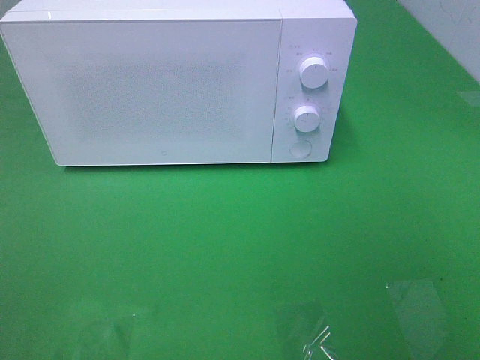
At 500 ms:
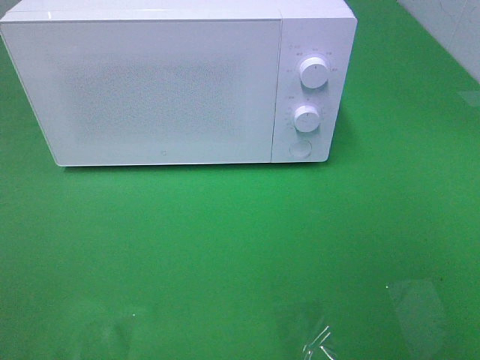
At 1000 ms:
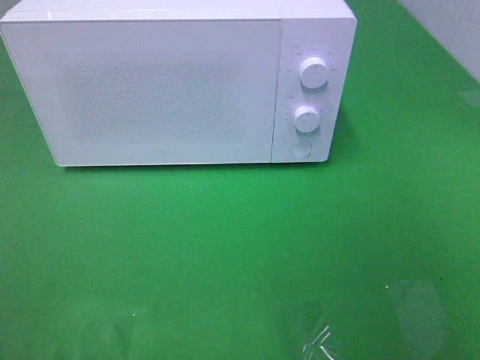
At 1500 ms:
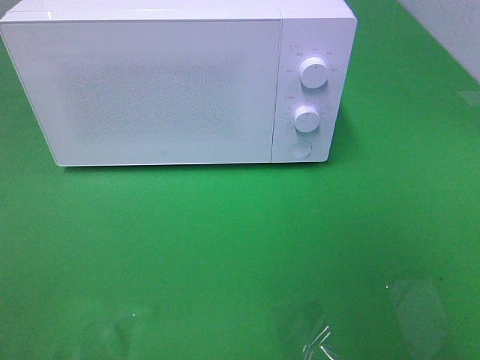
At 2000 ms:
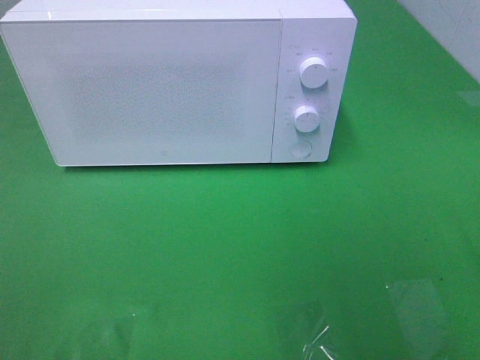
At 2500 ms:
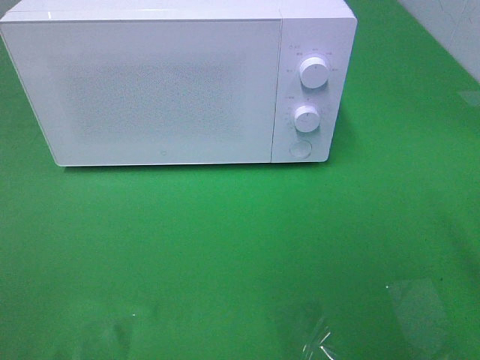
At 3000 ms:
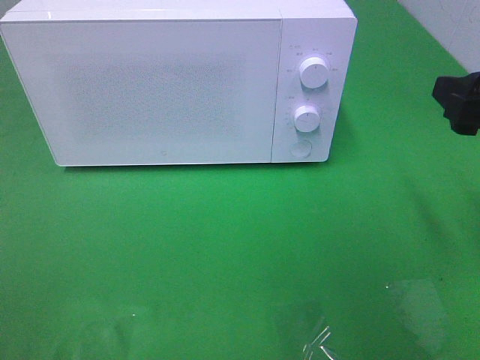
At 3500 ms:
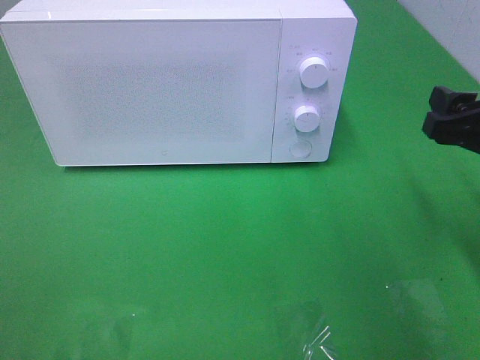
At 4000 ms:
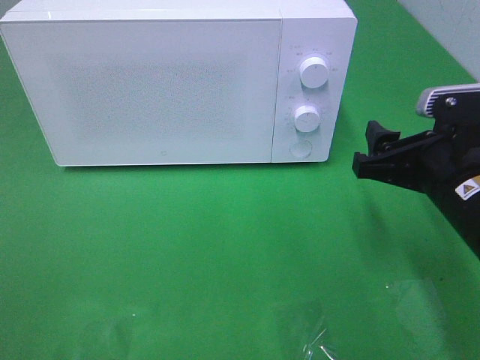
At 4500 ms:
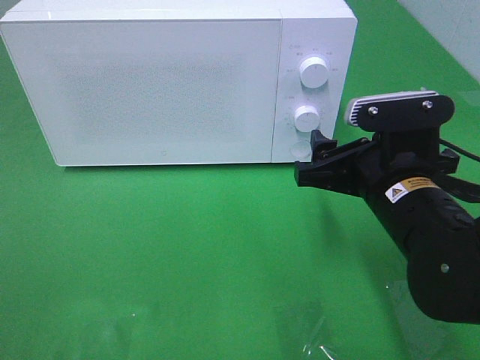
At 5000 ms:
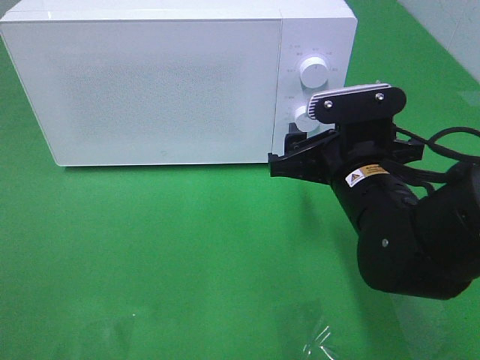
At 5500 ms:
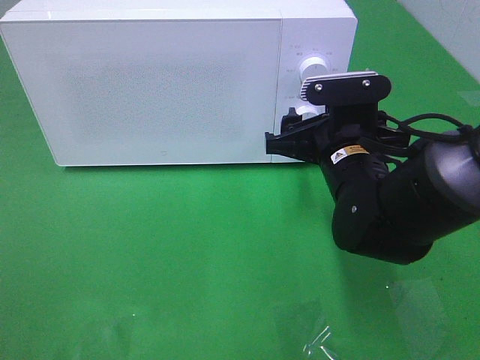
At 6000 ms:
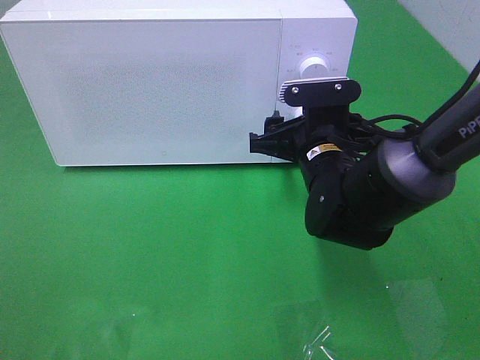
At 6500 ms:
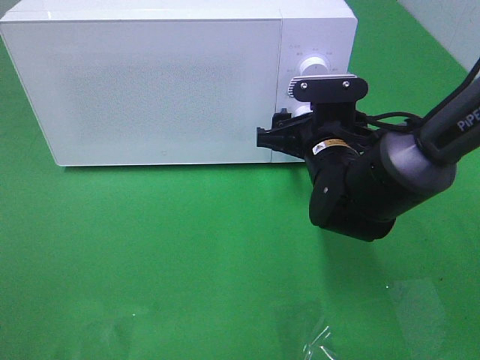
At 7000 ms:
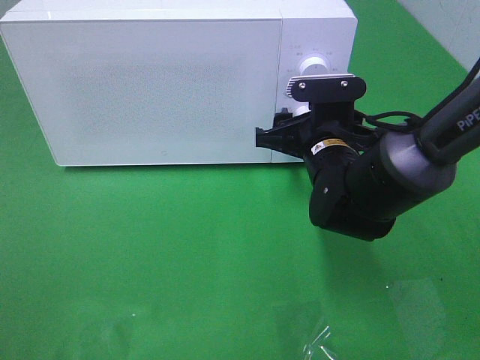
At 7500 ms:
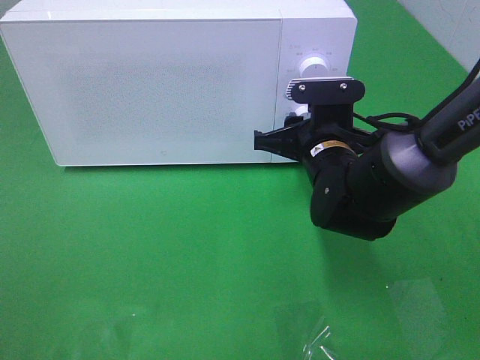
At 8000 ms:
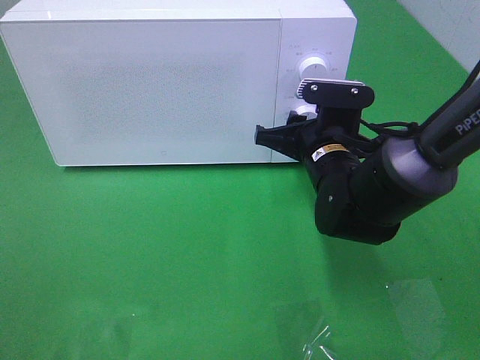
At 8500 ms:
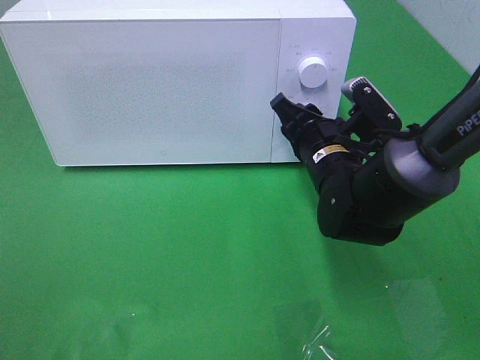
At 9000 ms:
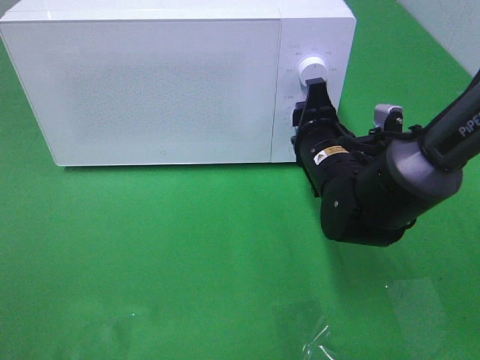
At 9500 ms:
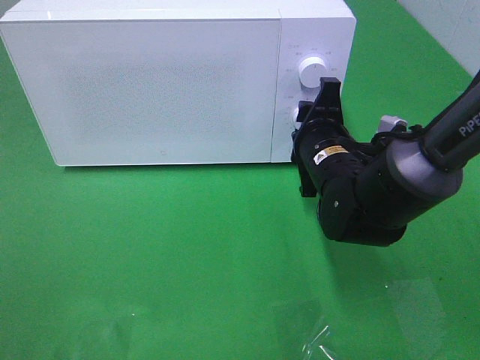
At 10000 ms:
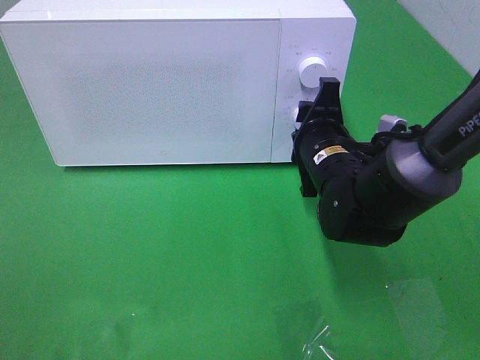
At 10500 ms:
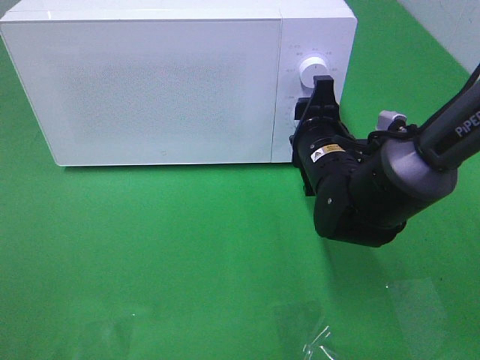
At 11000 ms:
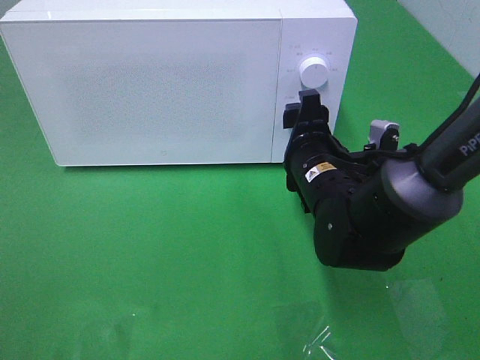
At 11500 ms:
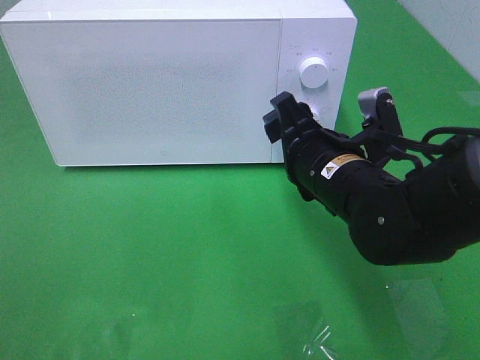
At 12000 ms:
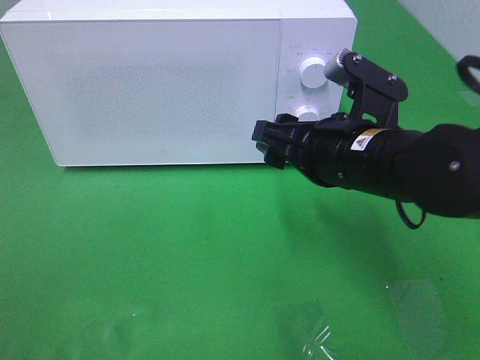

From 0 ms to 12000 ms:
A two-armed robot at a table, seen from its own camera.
Task of the whole recording: Heat the burger.
Step, from 0 ms to 11000 ms: Right hand: twist timer button.
From 2000 ms to 4000 ms: The right gripper travels downward, forward and to the left by about 20 cm.
From 4000 ms to 6000 ms: The right gripper travels to the left and forward by about 15 cm.
From 6000 ms to 8000 ms: The right gripper closes.
From 10000 ms to 12000 ms: The right gripper travels backward and upward by some 10 cm.

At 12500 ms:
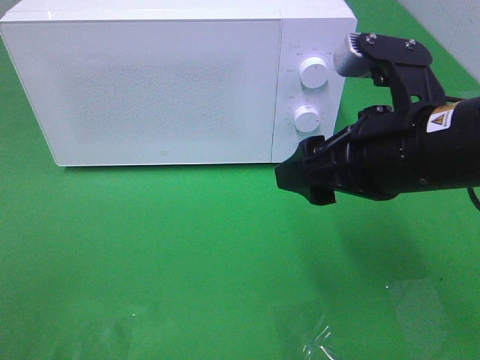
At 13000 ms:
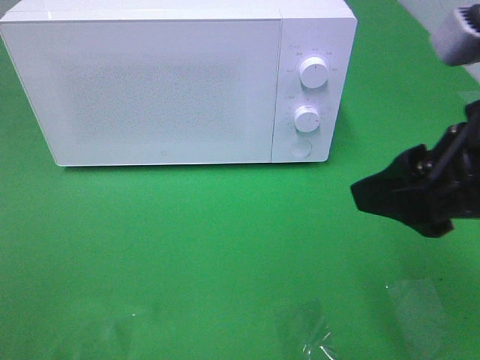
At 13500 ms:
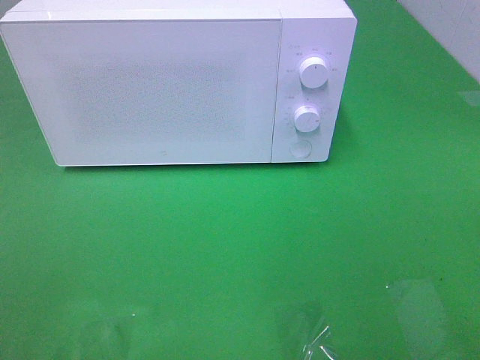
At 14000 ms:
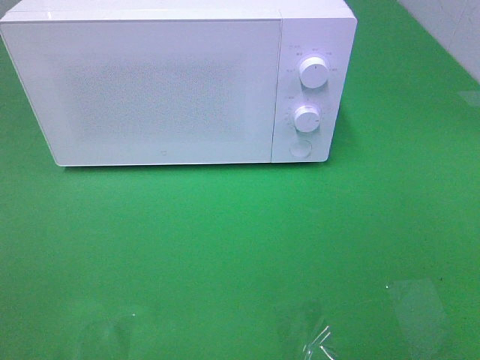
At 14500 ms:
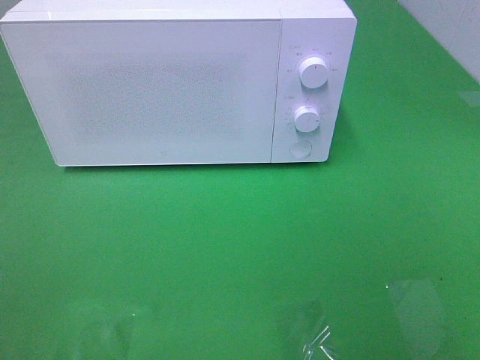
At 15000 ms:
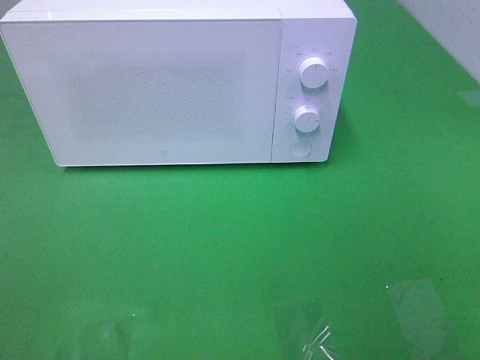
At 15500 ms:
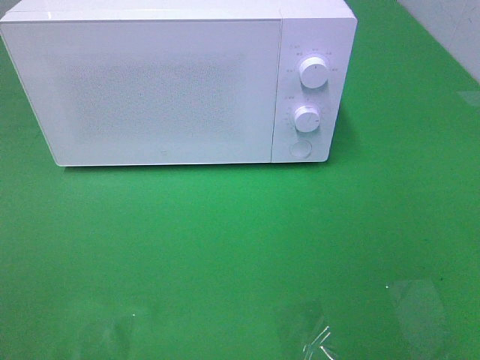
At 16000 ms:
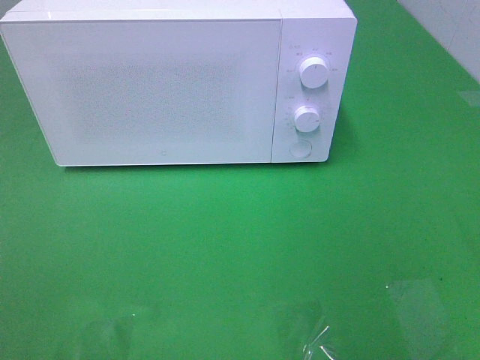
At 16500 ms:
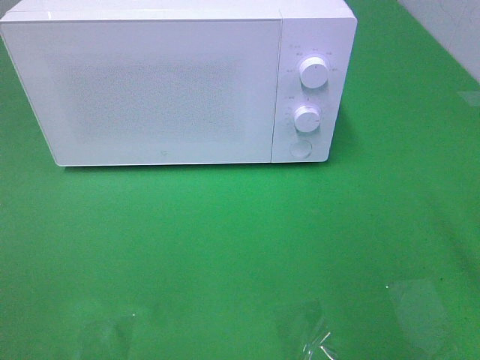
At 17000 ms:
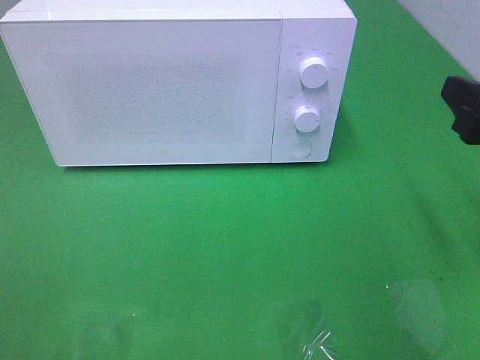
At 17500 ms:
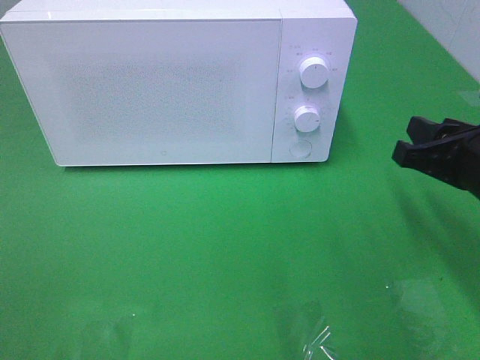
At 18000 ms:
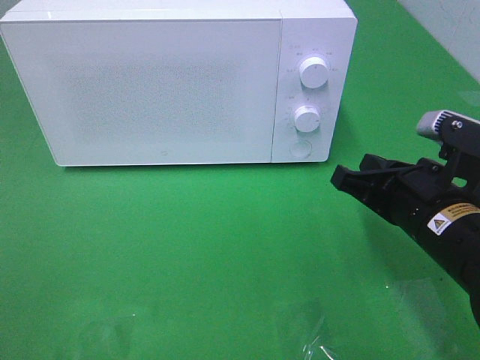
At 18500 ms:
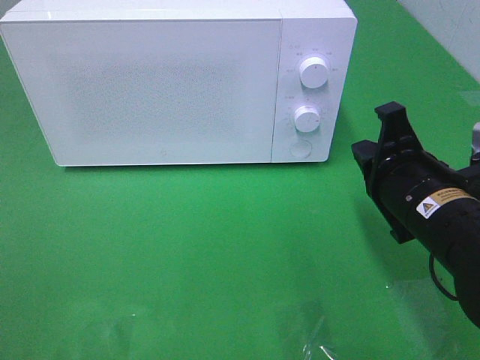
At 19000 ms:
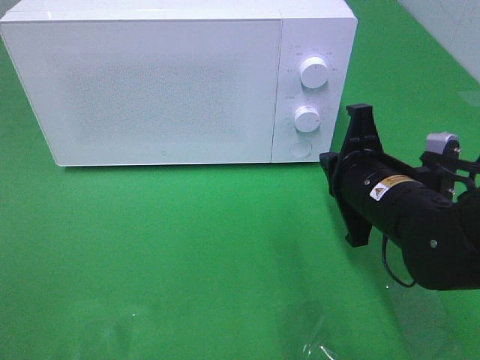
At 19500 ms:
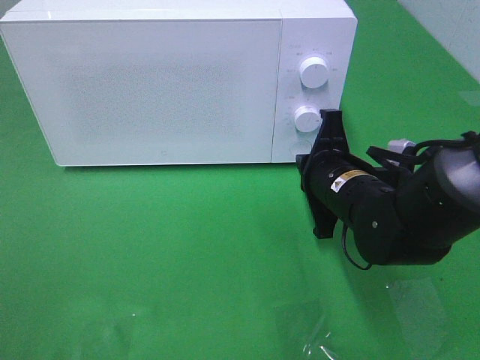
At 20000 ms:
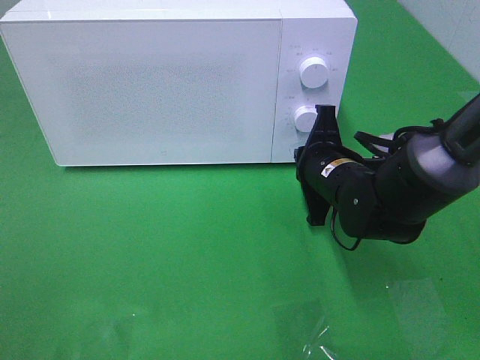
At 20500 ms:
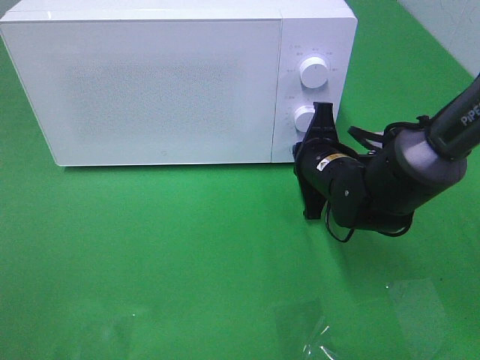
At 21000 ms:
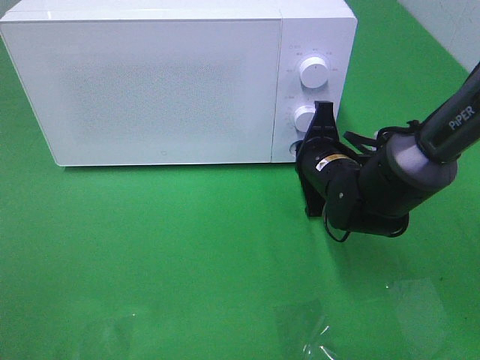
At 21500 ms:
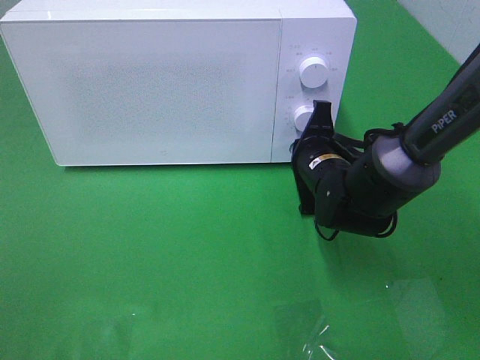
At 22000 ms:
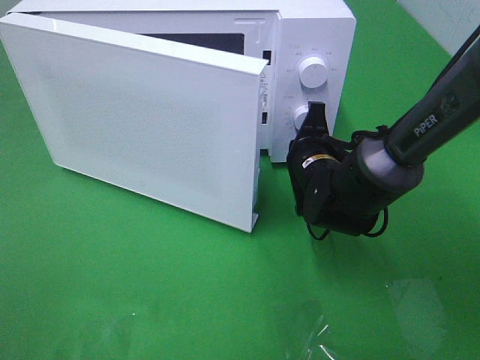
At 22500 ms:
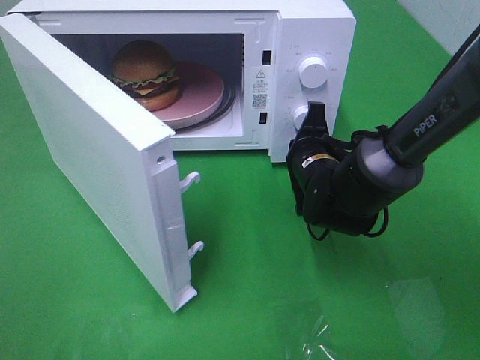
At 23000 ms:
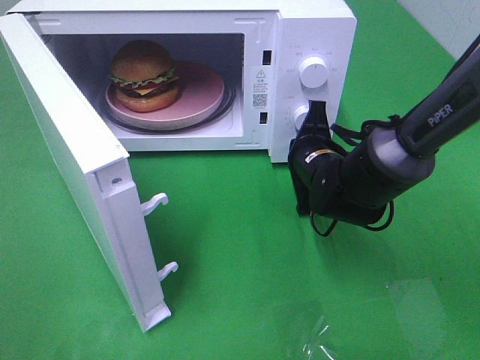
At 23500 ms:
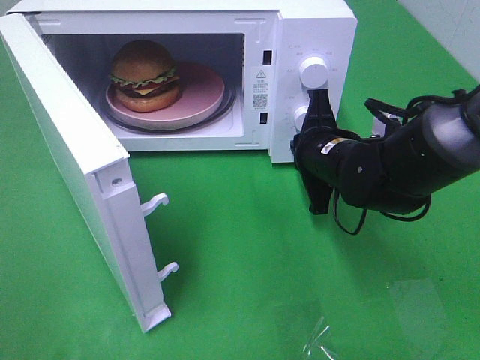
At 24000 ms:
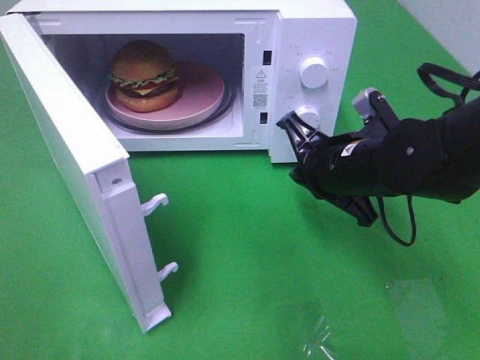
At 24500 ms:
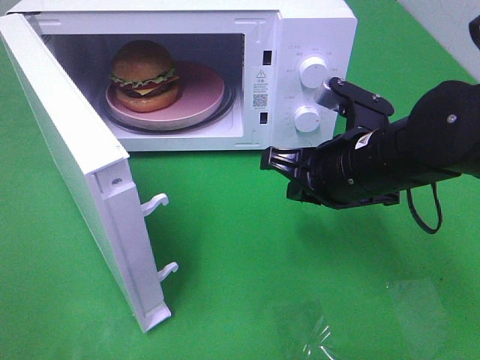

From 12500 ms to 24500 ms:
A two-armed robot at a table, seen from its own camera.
Task of the whole recording: Heat the burger.
Step, from 12500 ms to 23500 ms: Right hand: press the switch.
From 12500 ms to 14500 ms: The right gripper is displaced backward and to the right by approximately 25 cm.
From 16500 ms to 18500 ms: The right gripper travels downward, to the left and forward by roughly 15 cm, and closes.
From 18500 ms to 20500 ms: The right gripper is displaced forward, downward and to the left by about 15 cm.
From 22500 ms to 24500 ms: The right gripper goes some 15 cm upward and backward.

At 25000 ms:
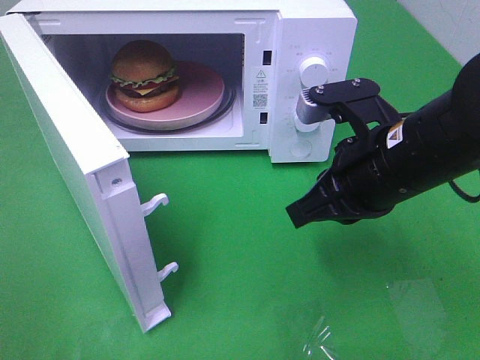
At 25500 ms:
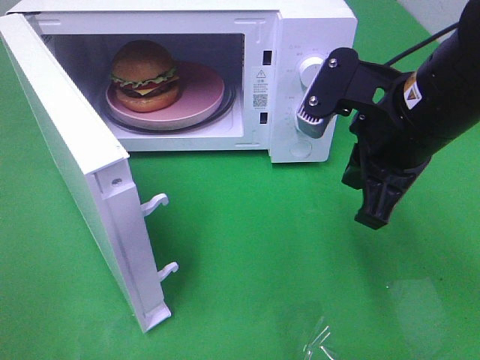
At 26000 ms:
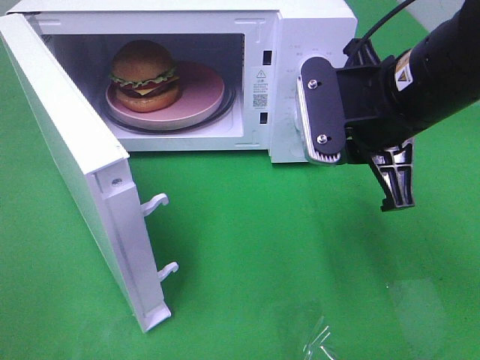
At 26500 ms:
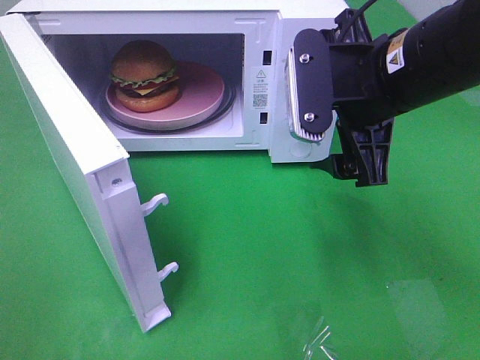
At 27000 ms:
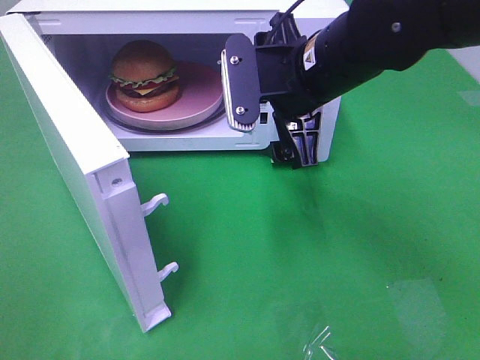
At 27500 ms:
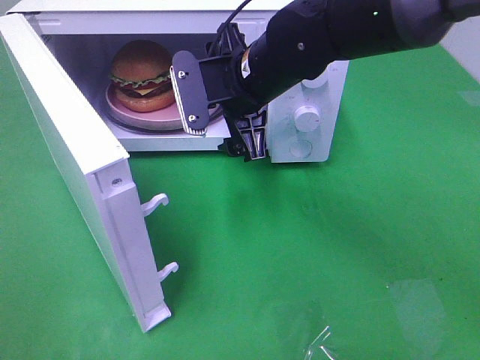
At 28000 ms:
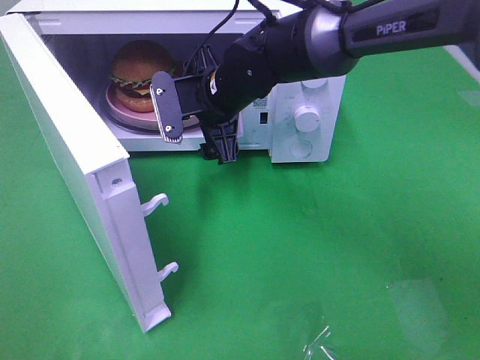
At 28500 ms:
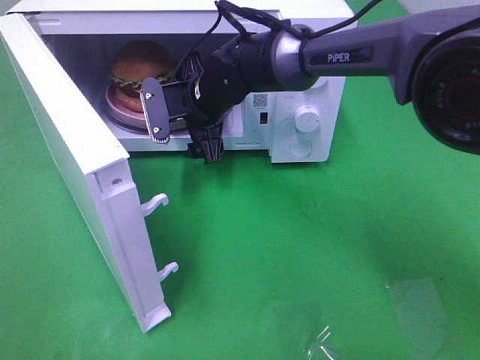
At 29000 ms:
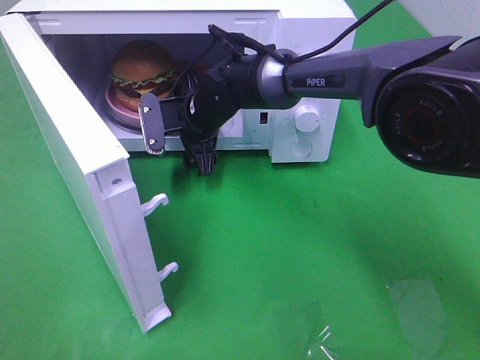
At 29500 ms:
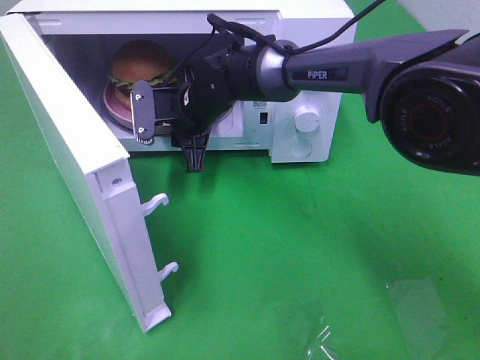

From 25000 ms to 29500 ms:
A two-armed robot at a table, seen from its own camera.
Task of the whole recording: Heat the burger.
From 25000 ms to 27000 ms: The right gripper travels forward and to the left by roughly 10 cm, and opens up.
From 27000 ms to 29500 ms: The right gripper is displaced to the left, forward and downward by some 20 cm, and closes up.
